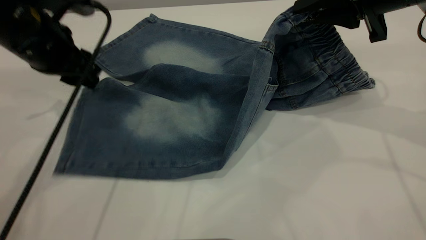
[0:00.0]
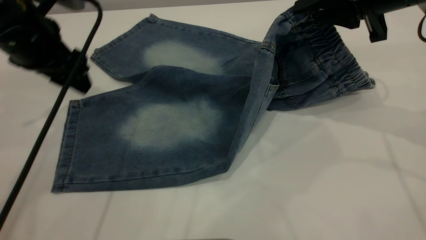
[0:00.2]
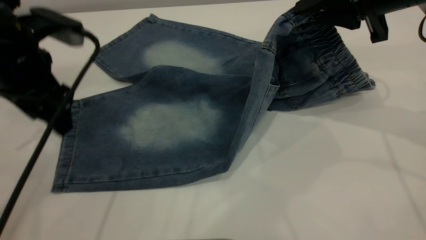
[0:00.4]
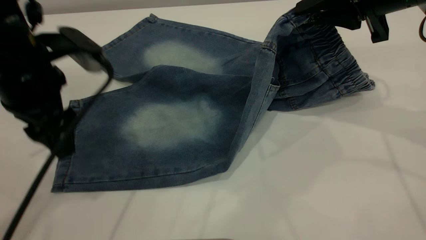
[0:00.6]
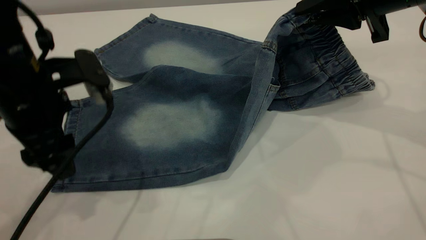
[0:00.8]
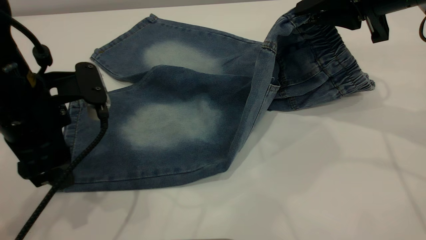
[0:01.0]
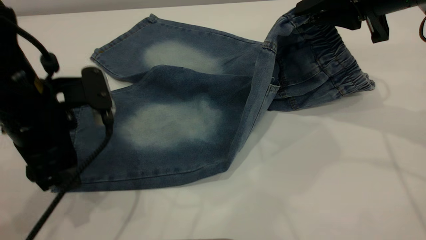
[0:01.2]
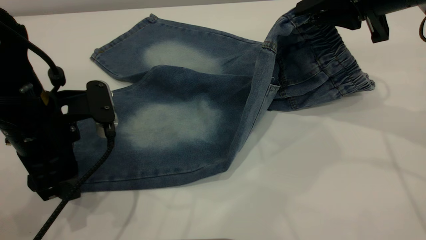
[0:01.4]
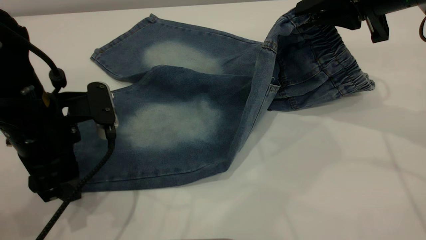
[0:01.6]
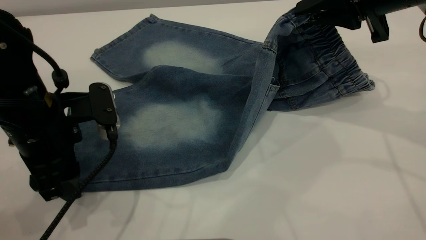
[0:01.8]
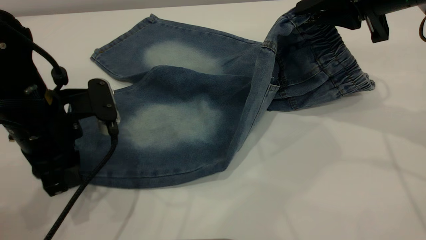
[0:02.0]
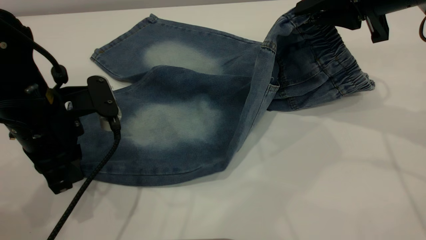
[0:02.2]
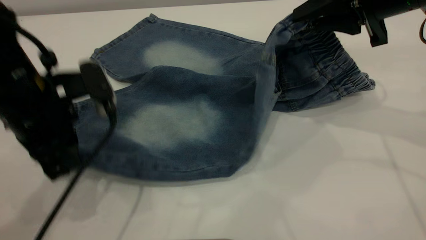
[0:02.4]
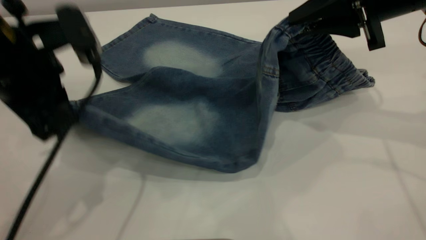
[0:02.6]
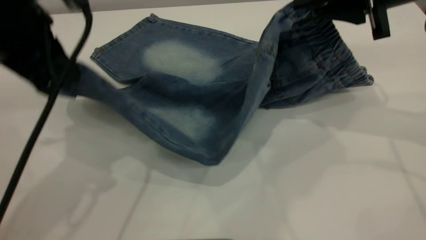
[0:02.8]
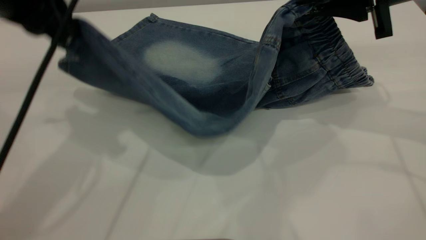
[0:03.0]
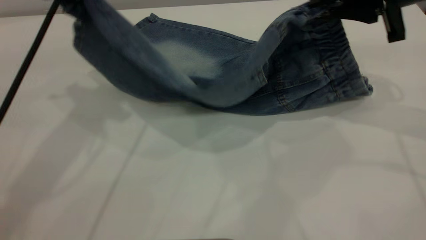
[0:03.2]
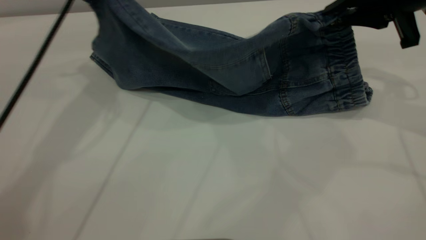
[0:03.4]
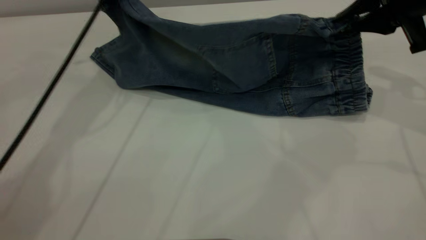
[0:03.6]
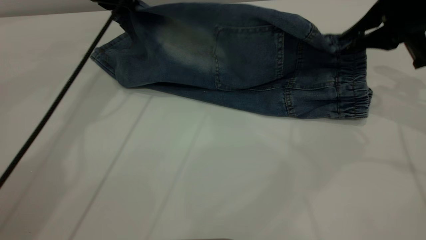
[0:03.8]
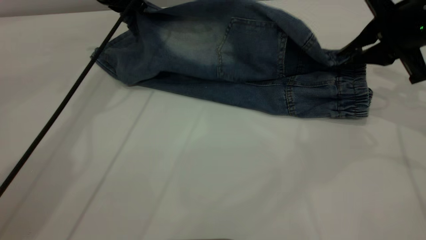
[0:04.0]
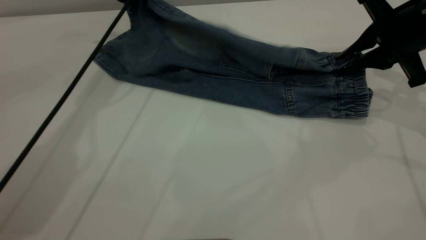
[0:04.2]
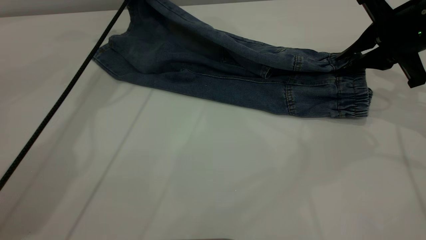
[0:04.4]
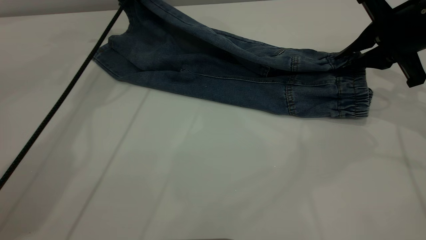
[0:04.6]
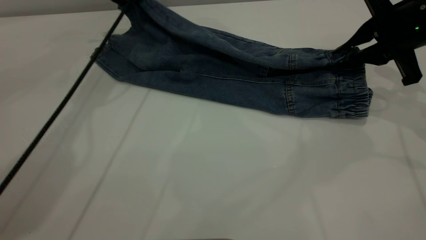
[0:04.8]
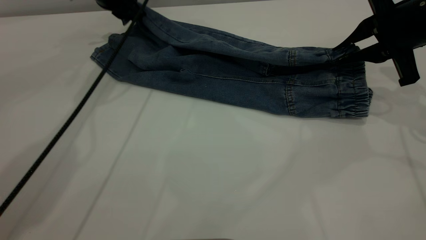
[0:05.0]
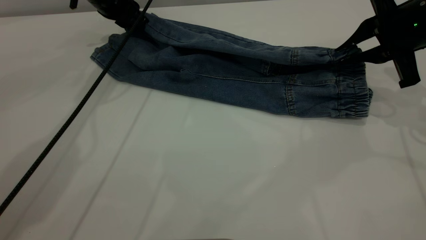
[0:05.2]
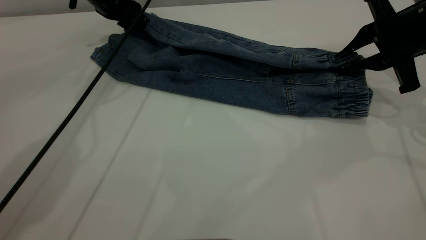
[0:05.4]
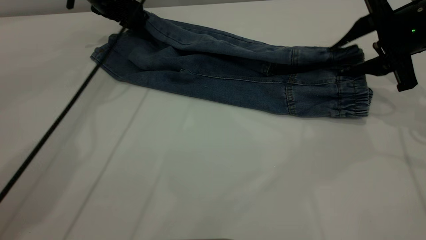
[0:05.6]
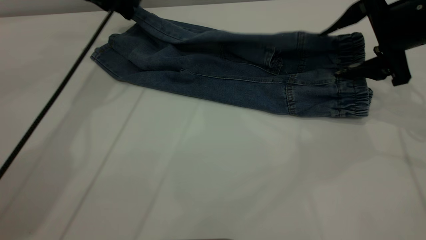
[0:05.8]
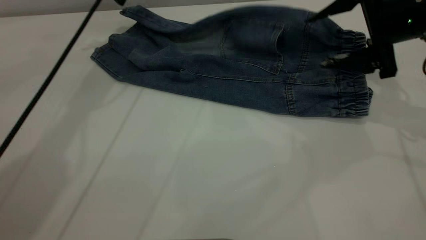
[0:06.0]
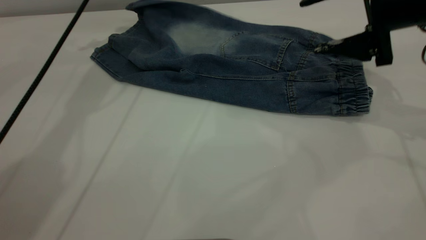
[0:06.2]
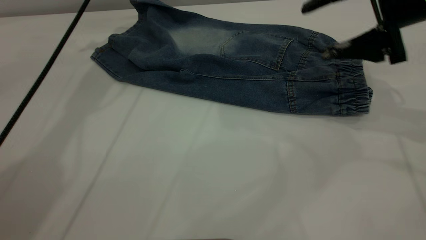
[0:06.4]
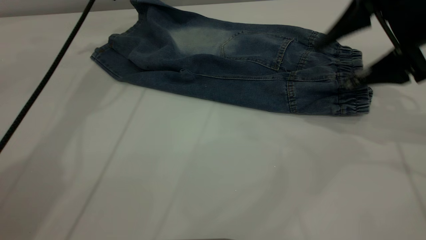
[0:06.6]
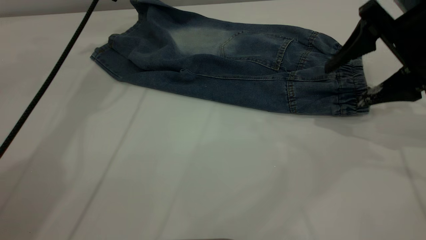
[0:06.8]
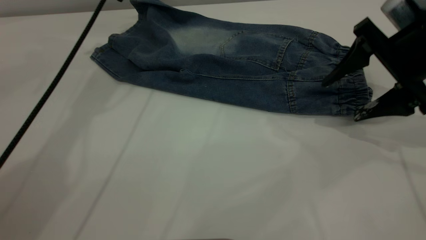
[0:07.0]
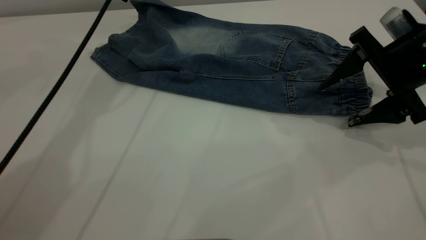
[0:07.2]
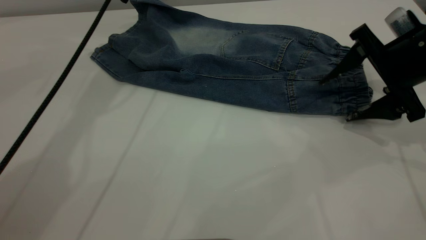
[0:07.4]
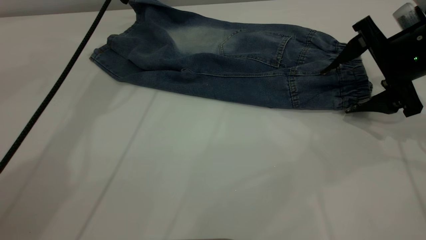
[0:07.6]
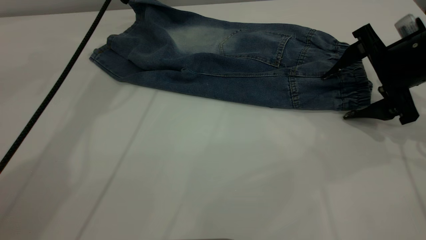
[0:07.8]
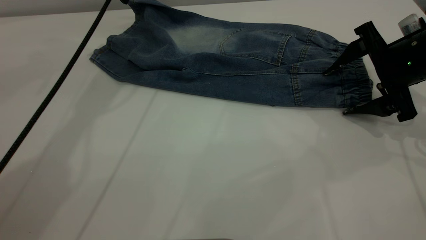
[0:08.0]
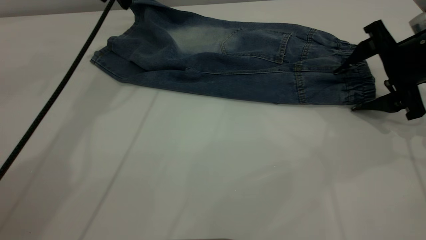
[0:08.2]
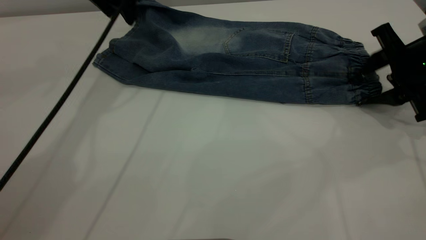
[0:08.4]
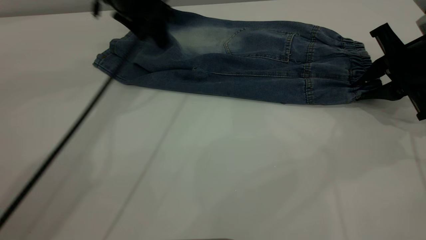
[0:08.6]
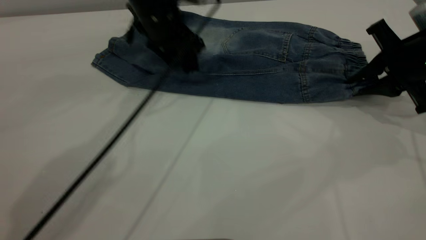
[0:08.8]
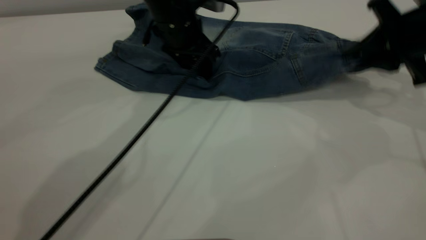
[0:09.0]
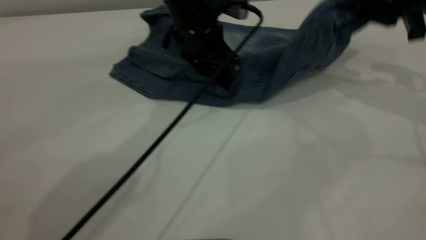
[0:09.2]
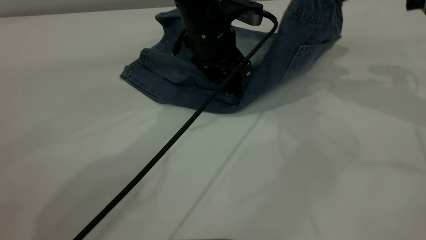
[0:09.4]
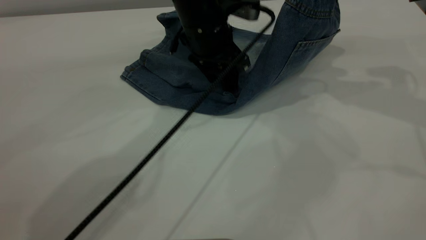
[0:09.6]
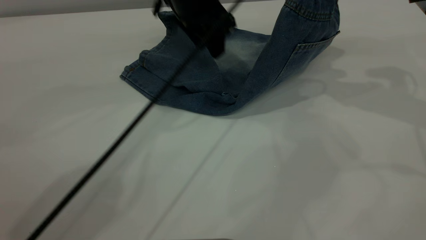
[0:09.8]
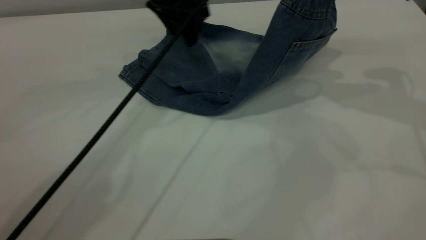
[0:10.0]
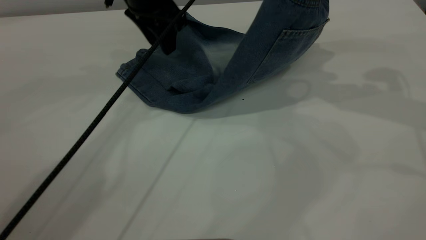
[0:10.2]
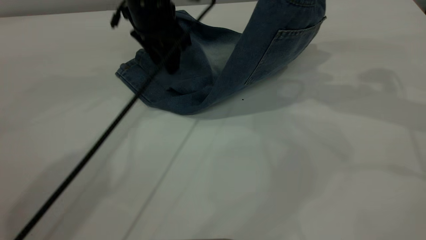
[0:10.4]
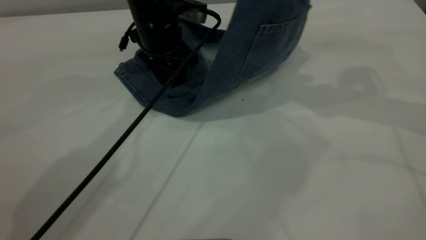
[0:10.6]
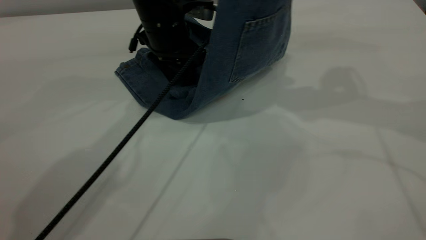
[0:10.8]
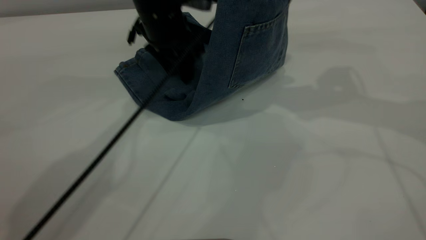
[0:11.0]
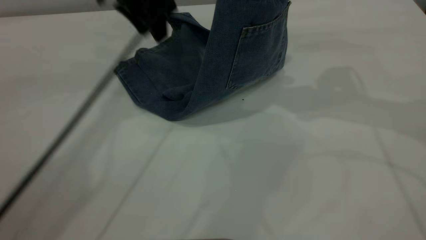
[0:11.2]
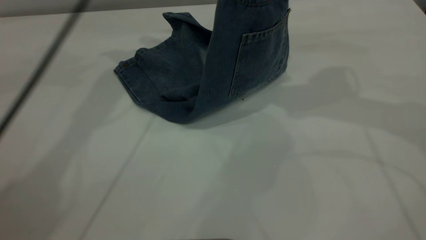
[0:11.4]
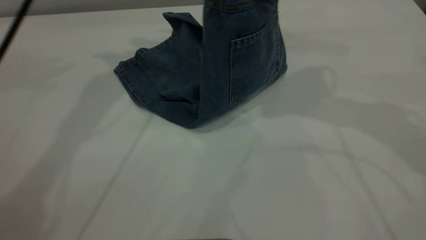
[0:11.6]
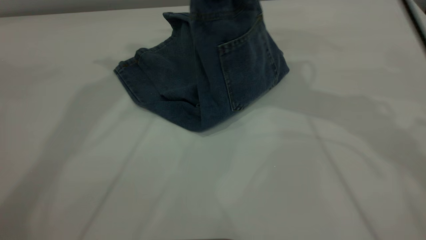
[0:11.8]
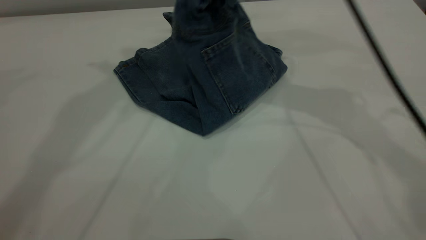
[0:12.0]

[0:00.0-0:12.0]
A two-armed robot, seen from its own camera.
Step, 0:00.0 to 0:07.6: Fold the bottom of the pants upward.
0:00.0 to 0:01.6: The left gripper heads backward and downward, covering some 10 cm.
0:01.6 to 0:03.0: The left gripper goes approximately 15 cm upward and forward, and closes up.
0:03.0 to 0:04.4: The left gripper travels forward by some 20 cm, while the right gripper travels downward by some 5 cm.
0:04.4 to 0:06.0: The right gripper opens up. Meanwhile the left gripper opens its fingers.
0:07.6 to 0:09.0: The right gripper closes its fingers; the left gripper travels to the right, downward and backward by roughly 20 cm.
0:09.0 to 0:10.4: The right gripper heads upward, covering roughly 10 cm.
0:10.4 to 0:12.0: The right gripper moves to the left, some 15 cm. The left gripper shifts approximately 30 cm upward.

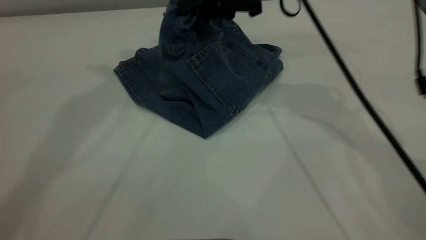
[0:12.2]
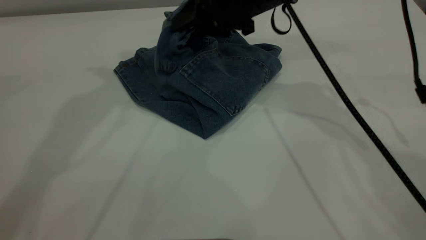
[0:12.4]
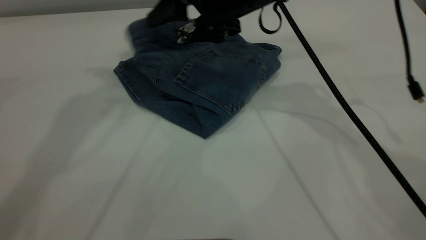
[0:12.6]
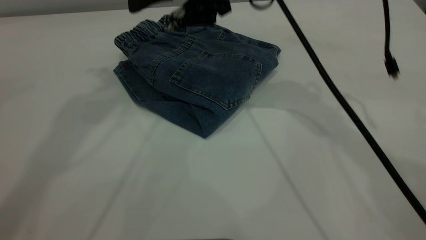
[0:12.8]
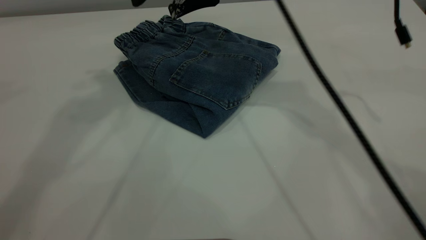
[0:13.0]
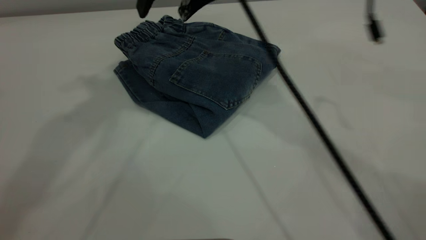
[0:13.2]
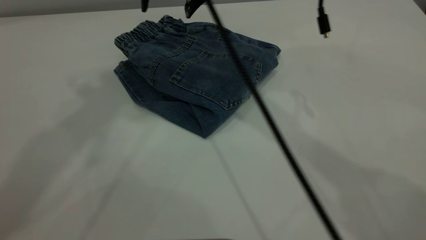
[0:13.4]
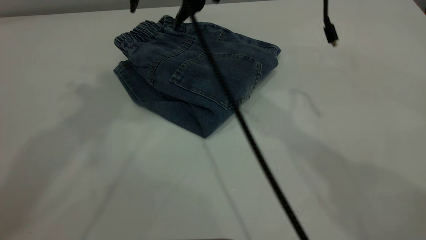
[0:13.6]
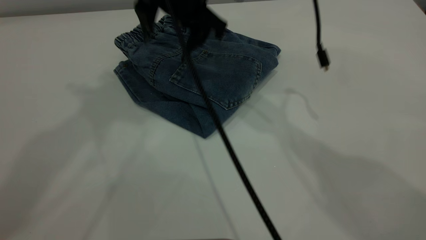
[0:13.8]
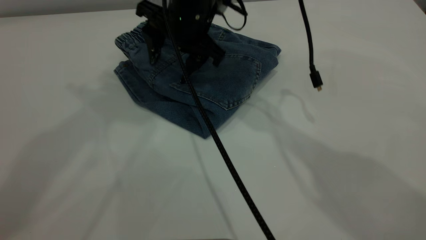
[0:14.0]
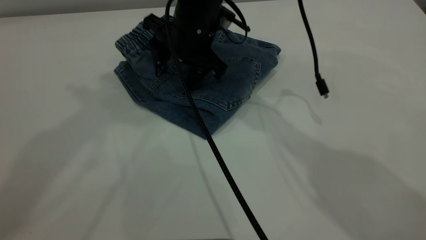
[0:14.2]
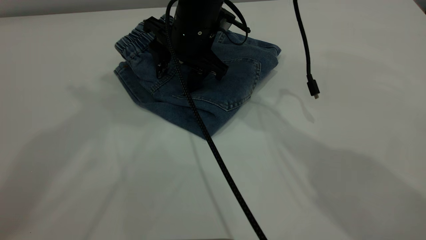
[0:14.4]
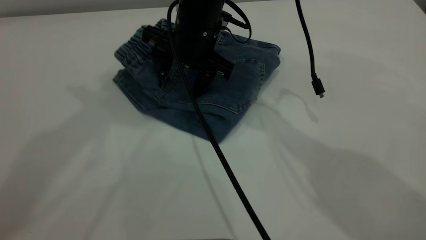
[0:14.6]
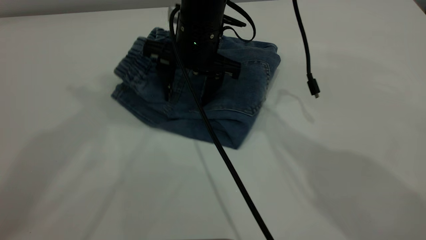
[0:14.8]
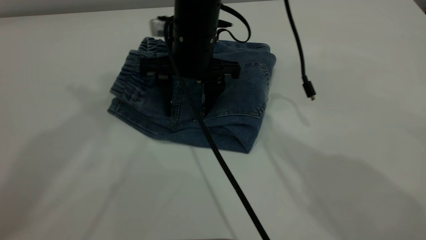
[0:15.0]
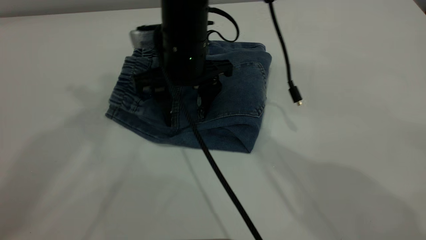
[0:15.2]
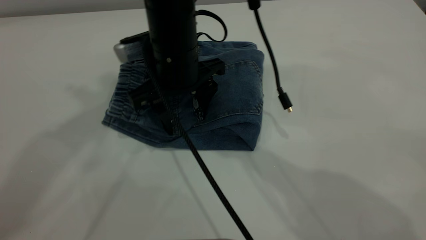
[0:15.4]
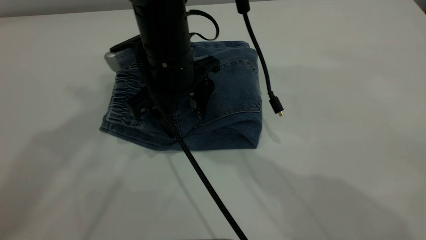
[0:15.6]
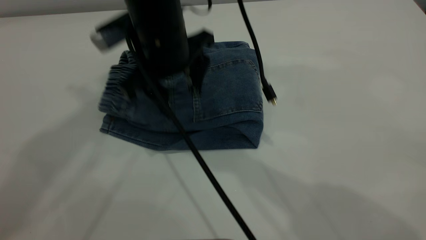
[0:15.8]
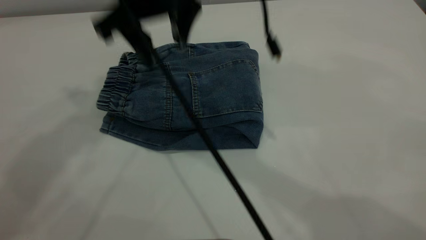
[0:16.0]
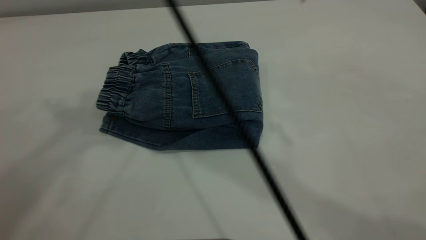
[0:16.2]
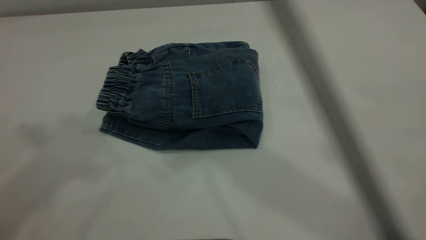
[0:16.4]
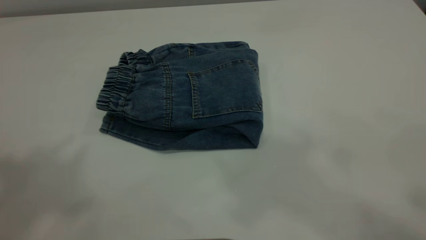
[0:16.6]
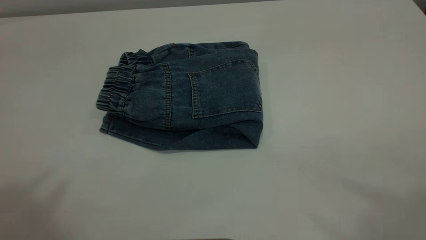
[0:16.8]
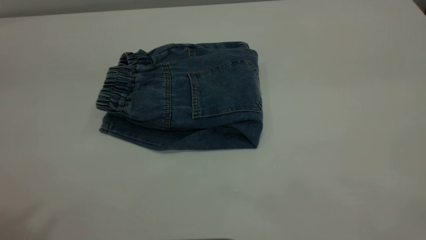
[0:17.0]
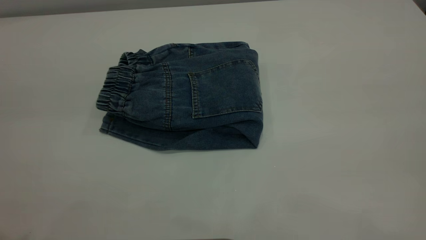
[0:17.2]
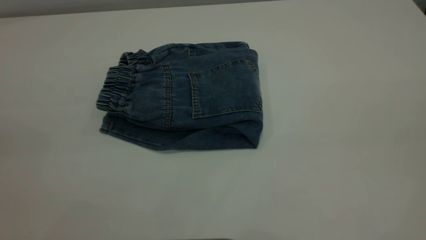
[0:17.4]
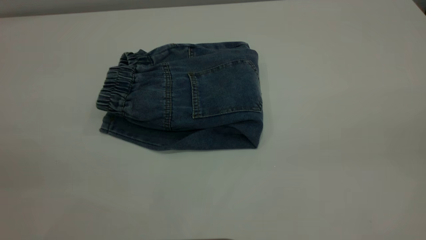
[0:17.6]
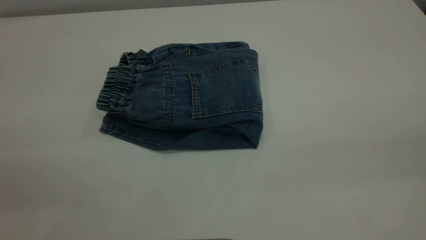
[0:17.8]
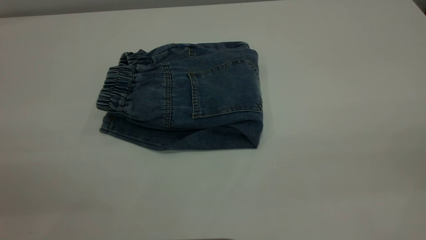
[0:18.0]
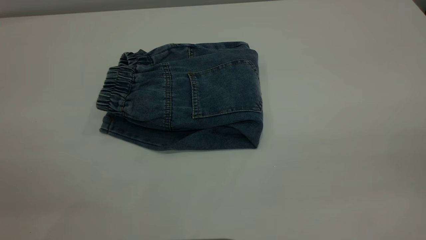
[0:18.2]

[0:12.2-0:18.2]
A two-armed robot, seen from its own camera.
0:12.2 to 0:13.8: The left gripper heads upward and backward, covering roughly 10 cm. The right gripper heads to the left, covering roughly 10 cm, and opens its fingers.
0:13.8 to 0:15.2: The right gripper moves backward and downward, some 10 cm.
0:15.2 to 0:16.6: The right gripper heads upward, covering some 40 cm, while the left gripper moves backward and upward, some 15 cm.
